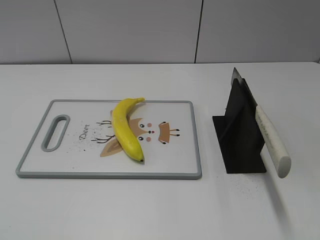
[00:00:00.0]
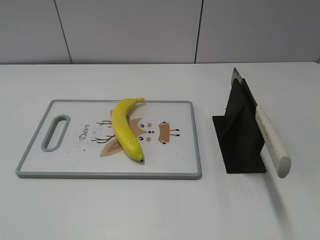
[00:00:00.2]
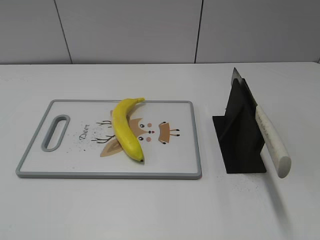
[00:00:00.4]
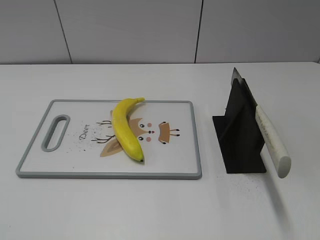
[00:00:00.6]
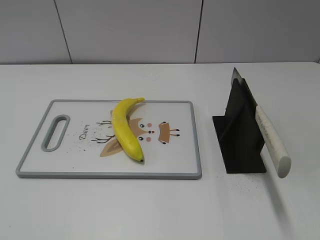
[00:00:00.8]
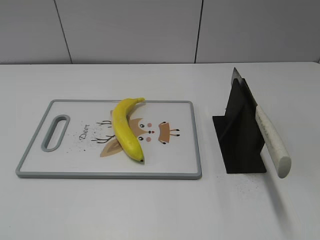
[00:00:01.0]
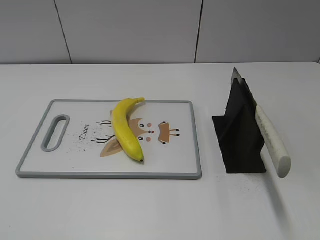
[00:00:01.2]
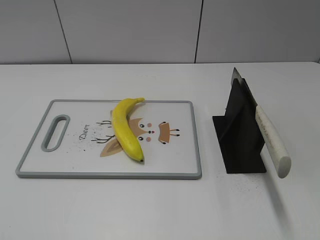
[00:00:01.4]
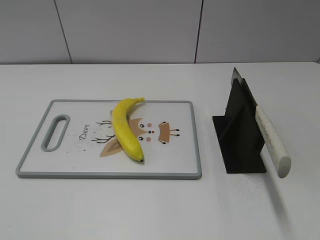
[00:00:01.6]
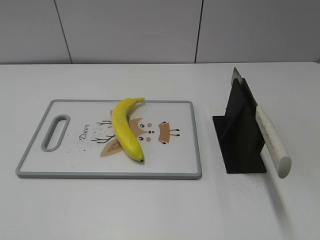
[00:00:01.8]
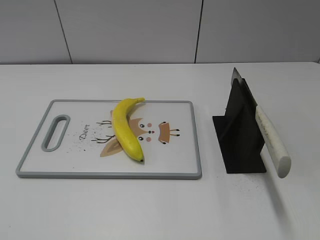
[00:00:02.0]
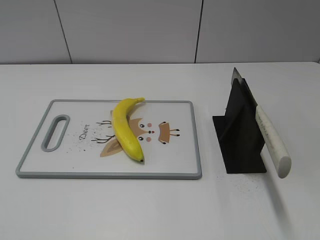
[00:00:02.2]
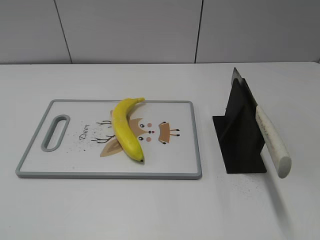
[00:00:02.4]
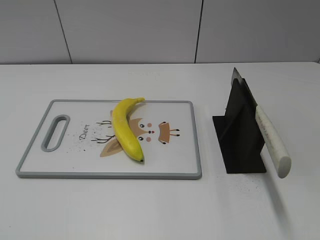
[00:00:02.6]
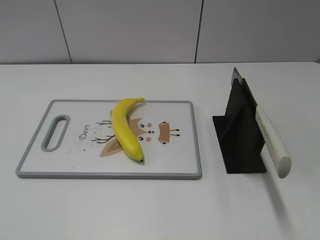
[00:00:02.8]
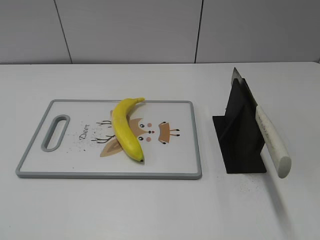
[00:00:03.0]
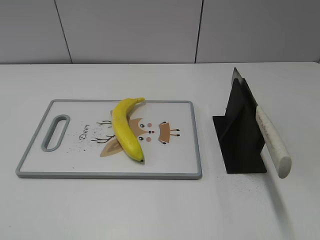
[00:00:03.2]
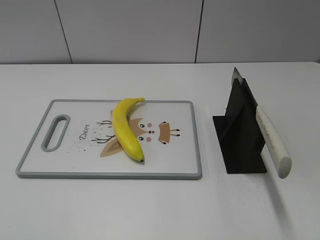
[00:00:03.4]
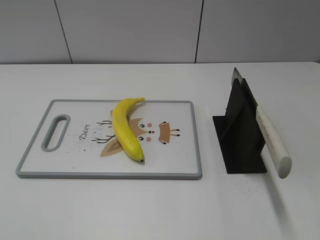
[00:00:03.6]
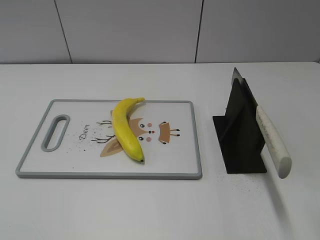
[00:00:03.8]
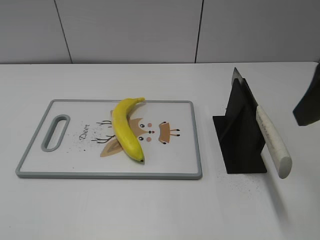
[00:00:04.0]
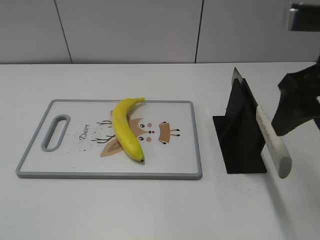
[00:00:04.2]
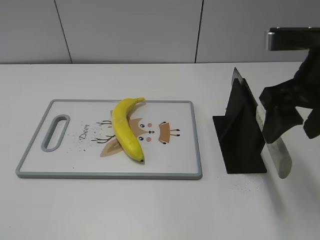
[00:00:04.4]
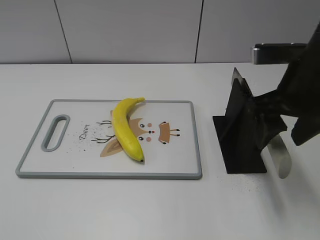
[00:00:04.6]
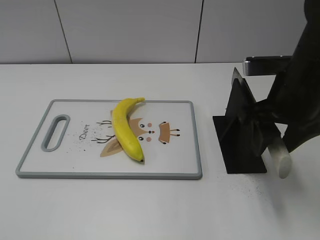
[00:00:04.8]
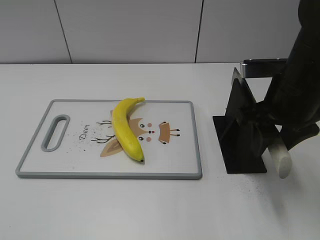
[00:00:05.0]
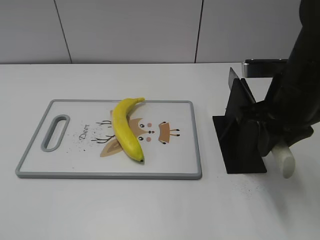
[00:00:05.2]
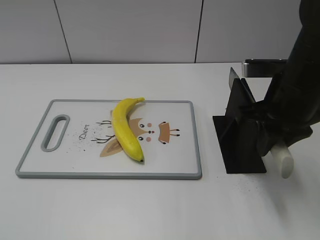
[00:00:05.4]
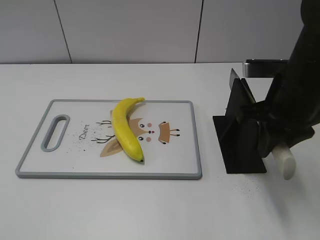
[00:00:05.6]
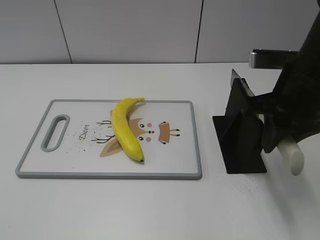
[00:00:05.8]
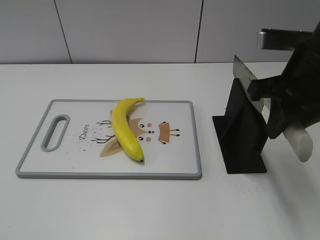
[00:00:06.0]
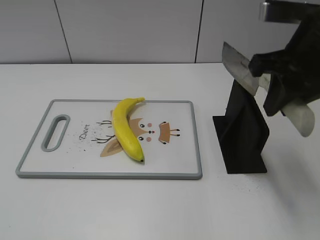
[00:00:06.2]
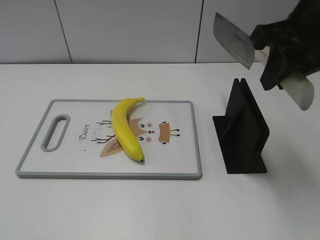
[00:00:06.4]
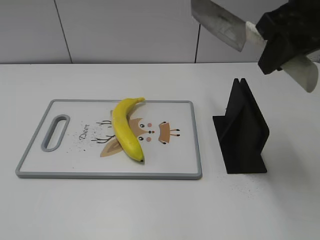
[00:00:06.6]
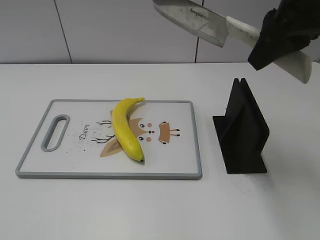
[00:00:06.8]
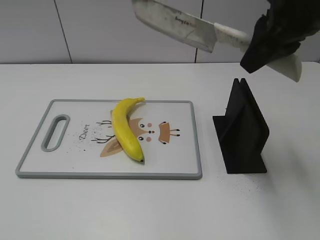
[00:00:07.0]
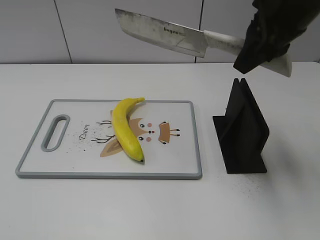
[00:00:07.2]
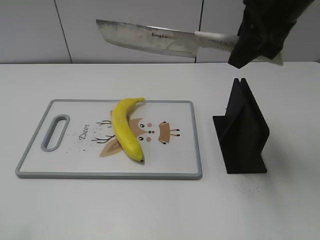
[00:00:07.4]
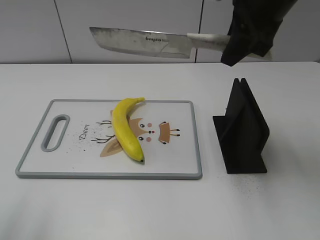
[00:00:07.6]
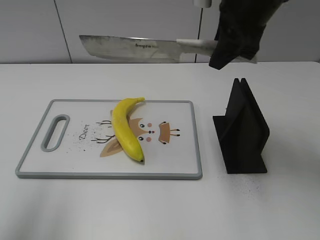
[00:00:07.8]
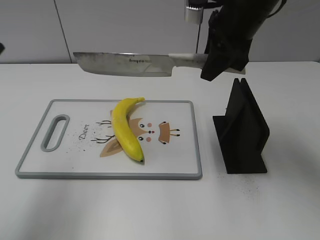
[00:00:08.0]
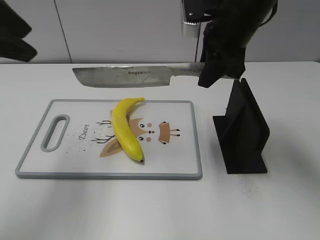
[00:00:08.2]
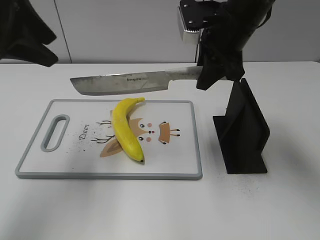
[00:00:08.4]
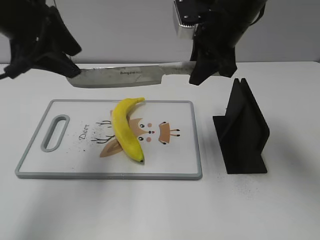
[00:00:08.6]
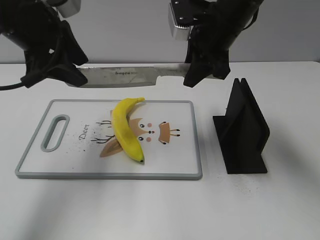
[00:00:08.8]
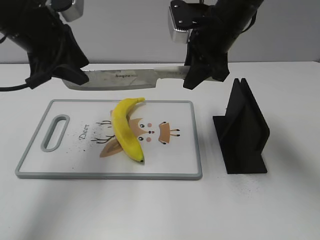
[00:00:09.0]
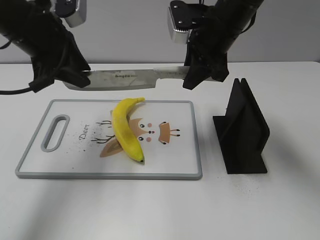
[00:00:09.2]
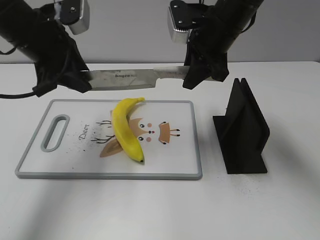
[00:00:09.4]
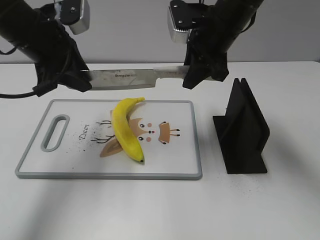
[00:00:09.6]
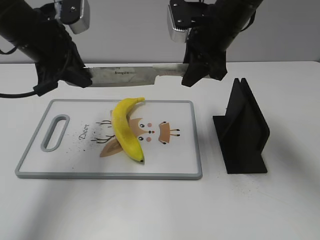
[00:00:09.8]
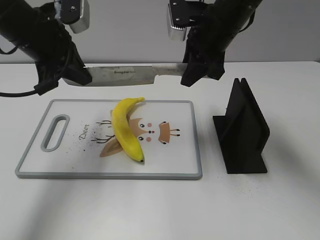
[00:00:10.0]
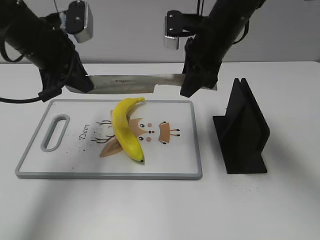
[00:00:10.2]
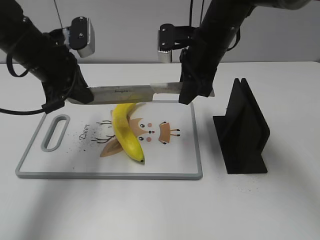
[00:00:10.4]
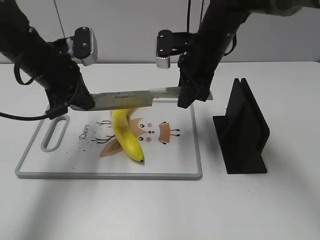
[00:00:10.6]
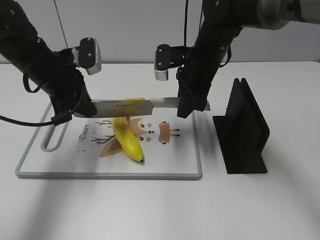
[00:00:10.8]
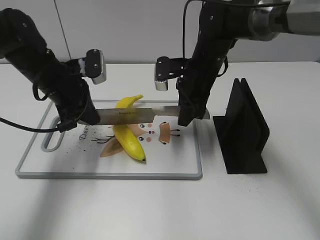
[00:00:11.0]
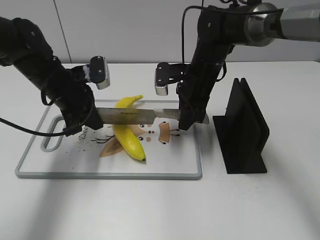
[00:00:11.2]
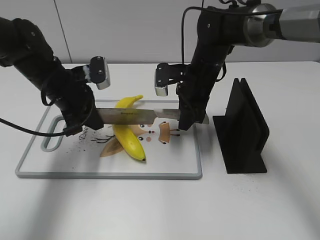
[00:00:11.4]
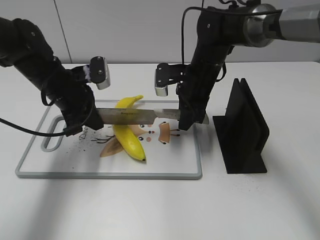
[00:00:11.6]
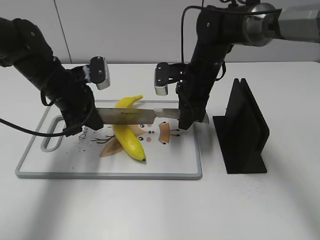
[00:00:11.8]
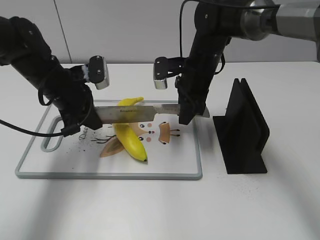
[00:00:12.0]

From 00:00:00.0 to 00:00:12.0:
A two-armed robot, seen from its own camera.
Task of the whole recording: cut plastic banana.
Step, from 00:00:00.0 to 00:00:06.4: Grab the knife handle with your right hand.
From 00:00:03.0 to 00:00:04.4: The right gripper moves forward and to the left, approximately 20 cm.
From 00:00:04.4 to 00:00:06.0: The right gripper closes its fingers.
From 00:00:06.0 to 00:00:07.6: Both grippers move forward and upward, some 10 cm.
From 00:00:07.6 to 00:00:09.0: The left gripper goes some 25 cm forward and to the right. The right gripper goes about 10 cm downward and forward.
From 00:00:09.0 to 00:00:10.4: The left gripper travels downward by some 5 cm, and closes its fingers.
From 00:00:10.4 to 00:00:12.0: The grippers both shift downward by some 5 cm.

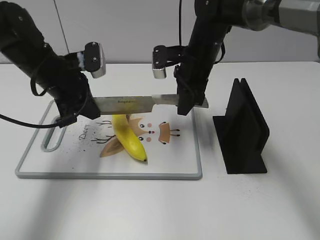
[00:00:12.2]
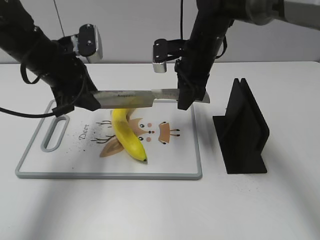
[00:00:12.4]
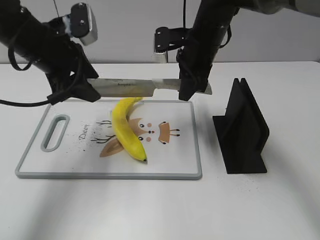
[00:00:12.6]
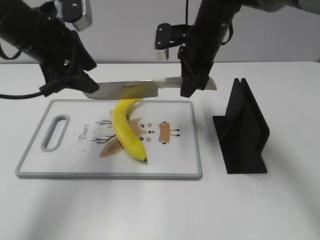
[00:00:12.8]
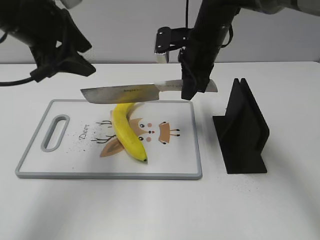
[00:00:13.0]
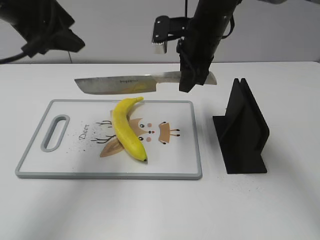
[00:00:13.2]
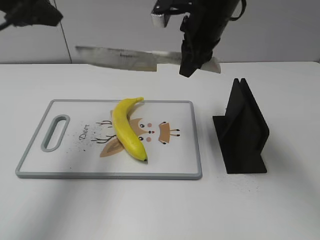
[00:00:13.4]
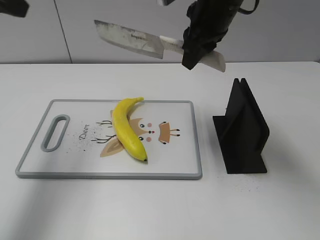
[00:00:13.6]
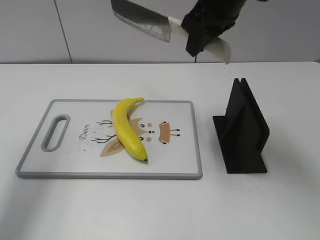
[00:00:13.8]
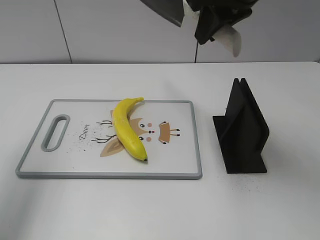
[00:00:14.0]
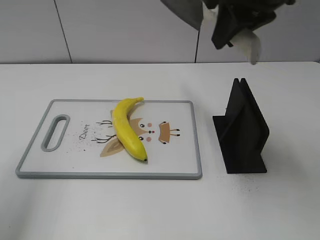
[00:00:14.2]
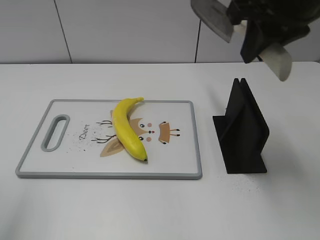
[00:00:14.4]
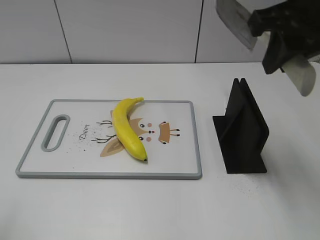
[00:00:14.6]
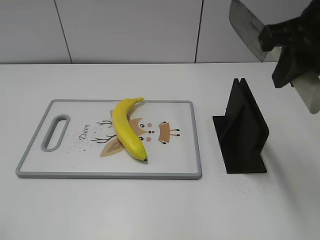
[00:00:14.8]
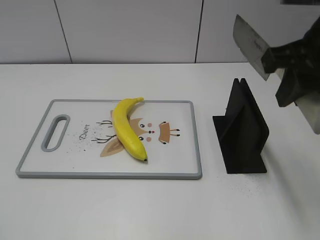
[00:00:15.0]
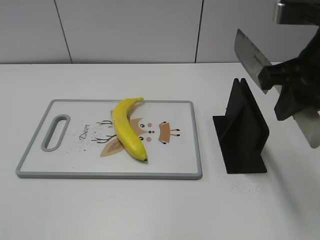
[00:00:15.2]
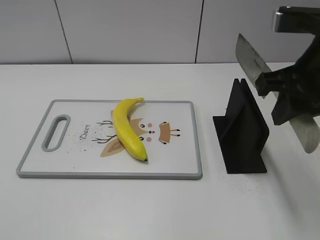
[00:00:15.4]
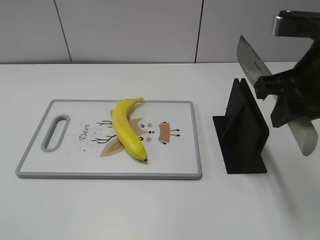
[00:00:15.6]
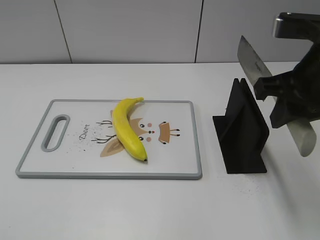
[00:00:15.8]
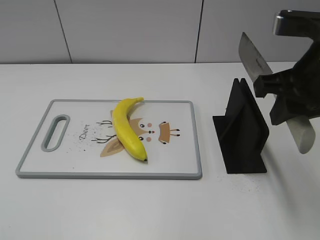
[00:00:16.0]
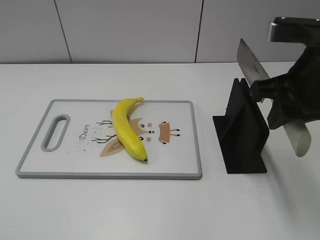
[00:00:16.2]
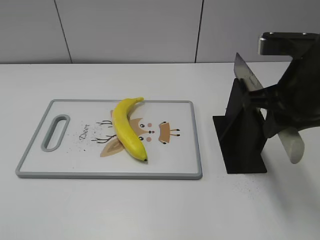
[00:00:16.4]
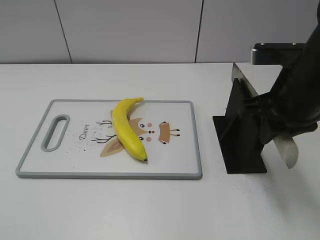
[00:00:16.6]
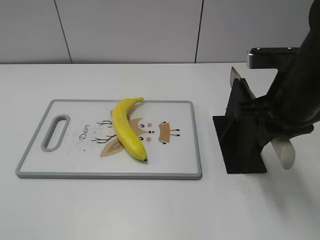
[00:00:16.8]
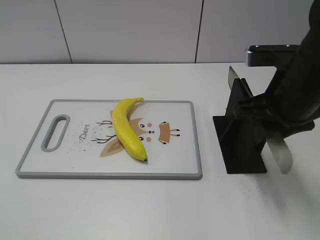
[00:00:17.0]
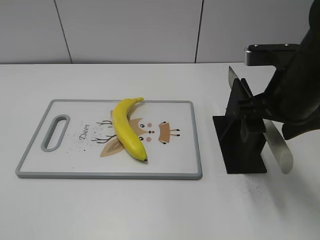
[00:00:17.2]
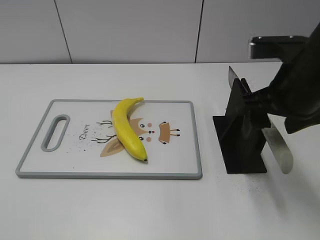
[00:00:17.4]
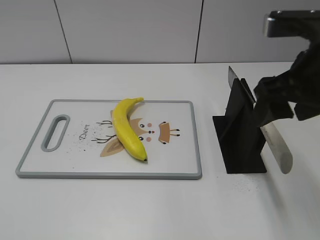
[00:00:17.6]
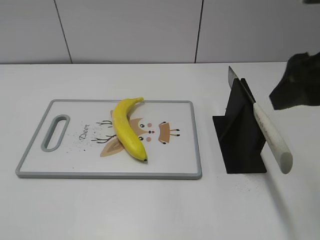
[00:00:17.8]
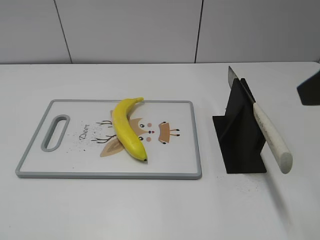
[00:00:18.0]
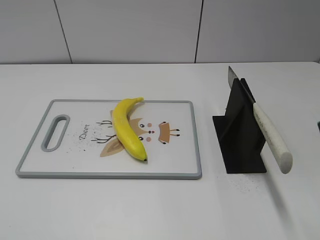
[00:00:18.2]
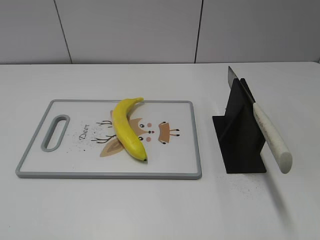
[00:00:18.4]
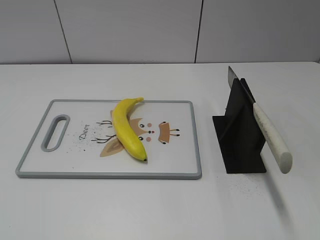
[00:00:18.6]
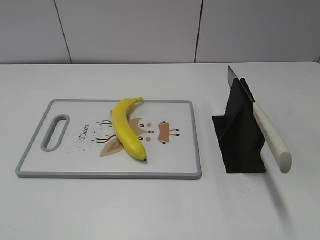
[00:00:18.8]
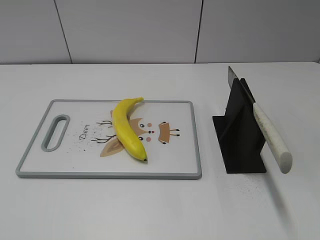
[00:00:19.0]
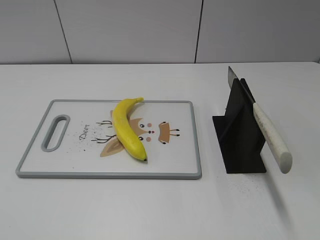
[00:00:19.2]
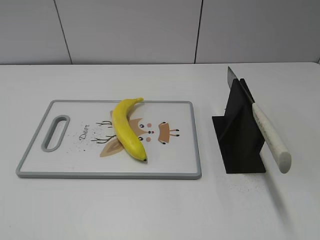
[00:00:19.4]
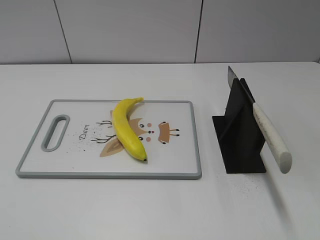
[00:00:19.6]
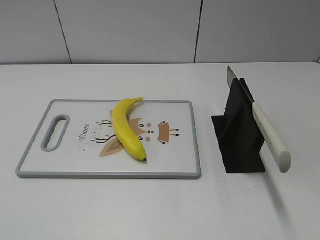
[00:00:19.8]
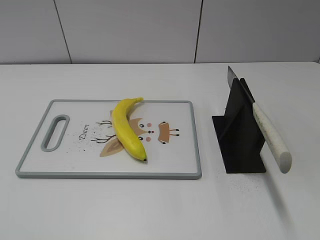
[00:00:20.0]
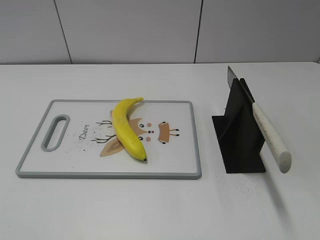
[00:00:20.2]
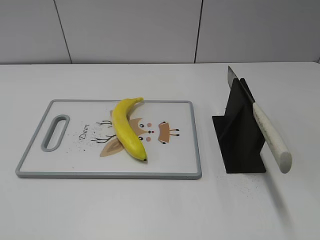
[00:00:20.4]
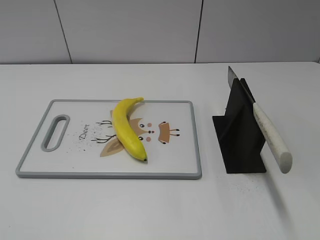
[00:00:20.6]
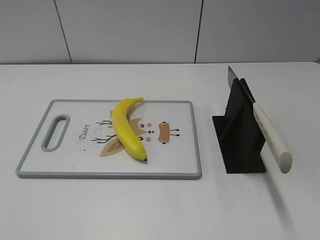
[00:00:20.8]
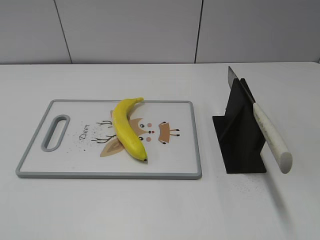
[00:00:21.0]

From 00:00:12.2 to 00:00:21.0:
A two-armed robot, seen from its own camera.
Task of the whole recording: cut plastic banana.
Step, from 00:00:12.8 to 00:00:14.8: Cut the banana with your right hand.
Step, from 00:00:15.0 to 00:00:15.6: Lift the knife with your right hand.
Step, from 00:00:16.0 to 00:00:21.0: Place the knife on the storage rack with your right hand.
From 00:00:12.2 to 00:00:13.6: The right gripper travels upward by some 10 cm, while the left gripper shifts approximately 20 cm upward, and opens up.
From 00:00:13.6 to 00:00:15.2: The right gripper moves backward and to the right, some 20 cm. Meanwhile the left gripper travels backward by approximately 30 cm.
From 00:00:15.2 to 00:00:16.6: The right gripper travels downward by about 5 cm.
From 00:00:16.6 to 00:00:18.0: The right gripper shifts some 15 cm upward and backward, and opens up.
From 00:00:18.0 to 00:00:19.6: The right gripper travels backward, to the right and downward by some 20 cm.
